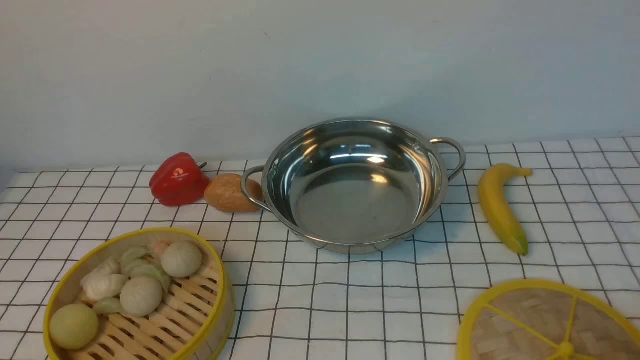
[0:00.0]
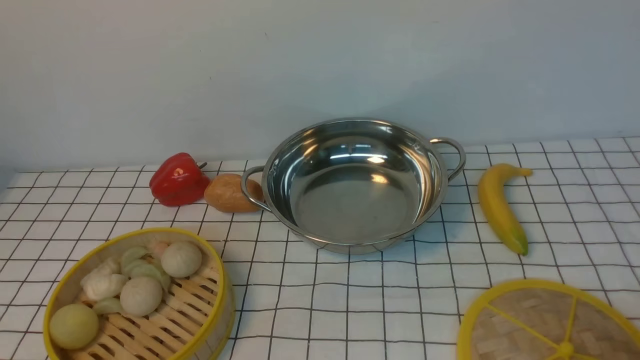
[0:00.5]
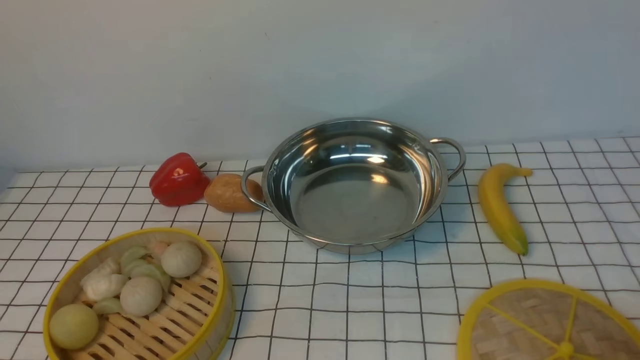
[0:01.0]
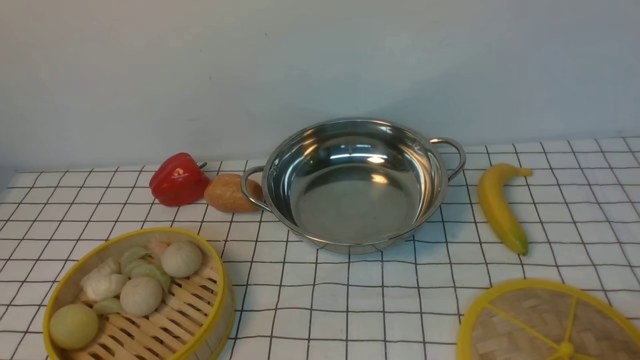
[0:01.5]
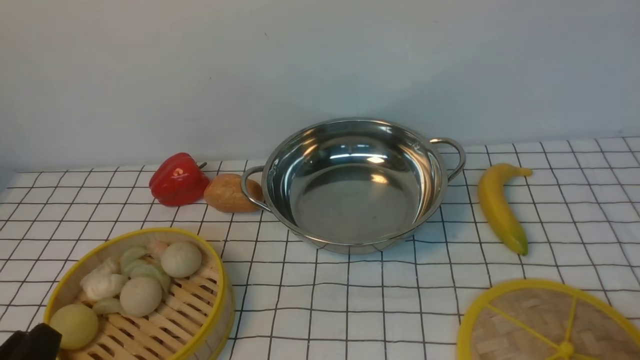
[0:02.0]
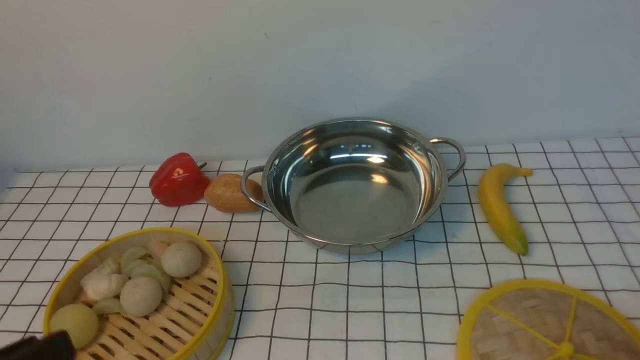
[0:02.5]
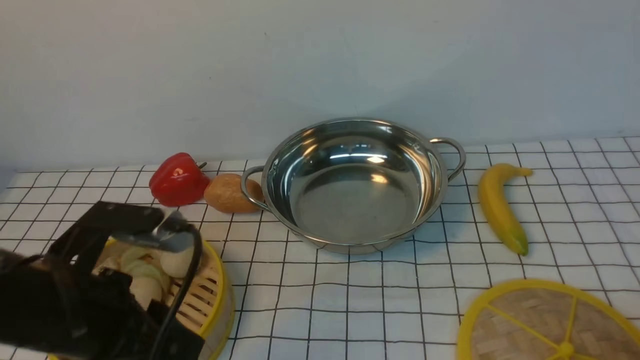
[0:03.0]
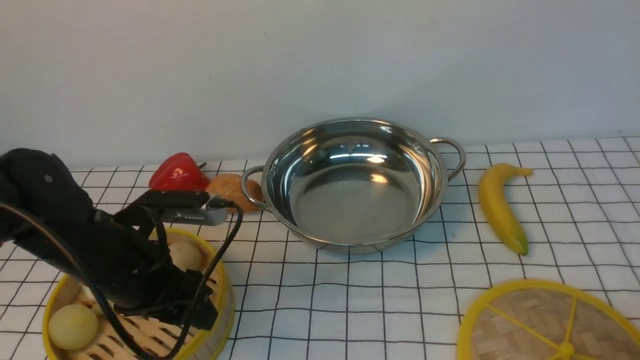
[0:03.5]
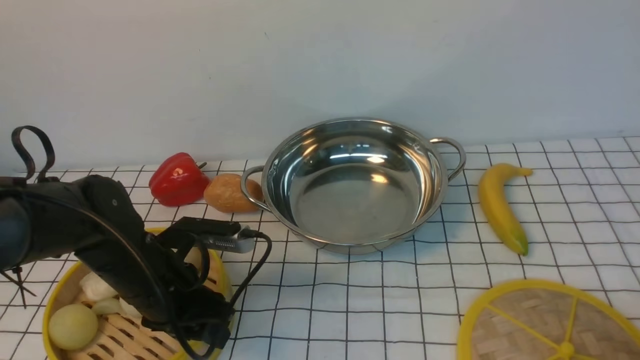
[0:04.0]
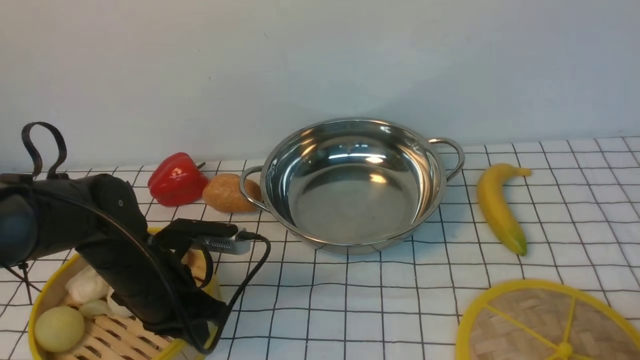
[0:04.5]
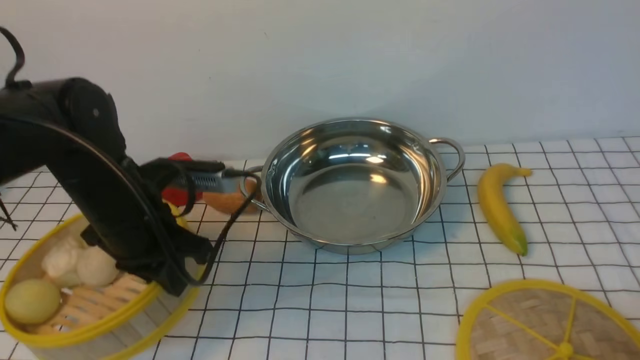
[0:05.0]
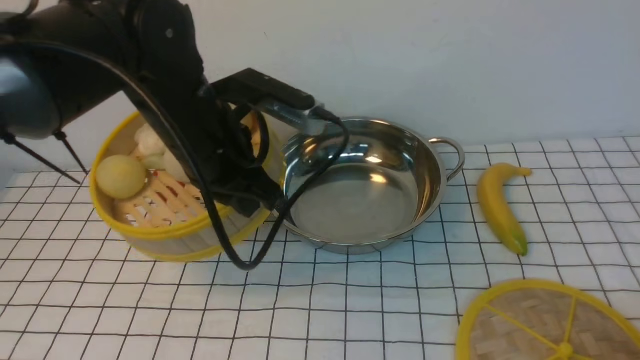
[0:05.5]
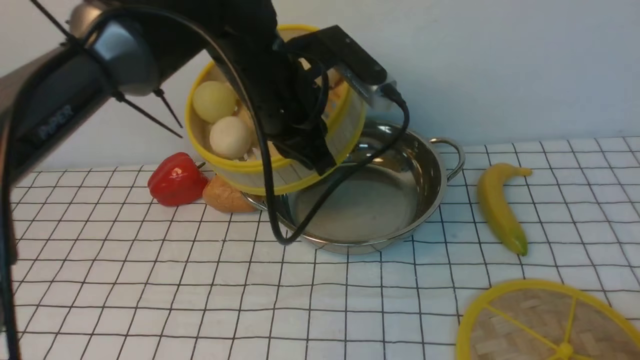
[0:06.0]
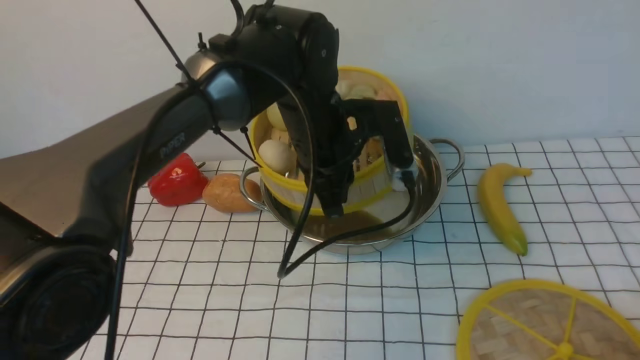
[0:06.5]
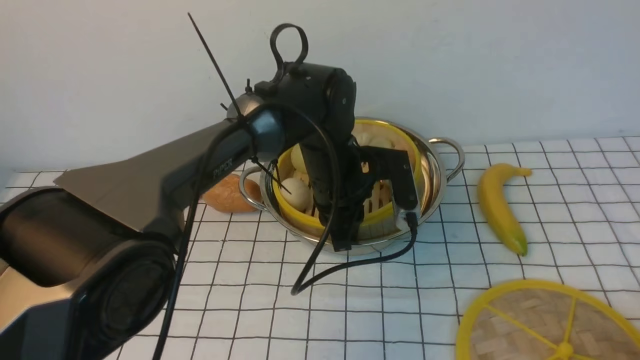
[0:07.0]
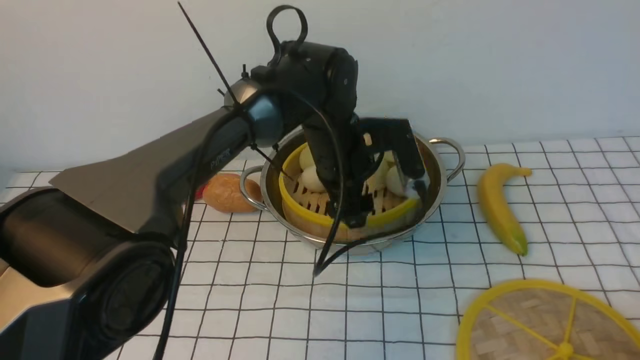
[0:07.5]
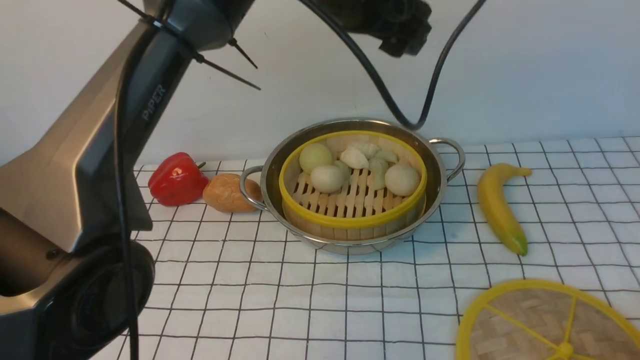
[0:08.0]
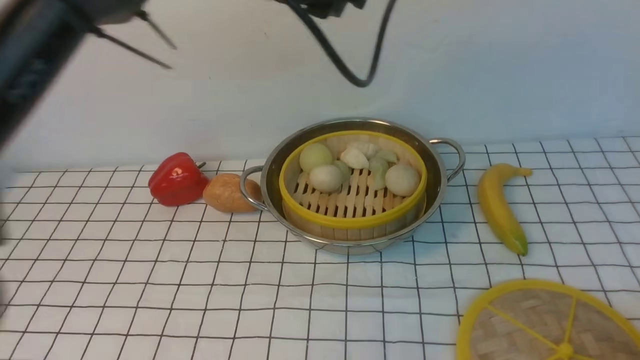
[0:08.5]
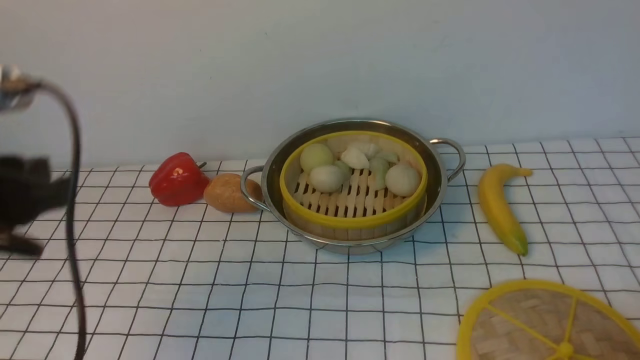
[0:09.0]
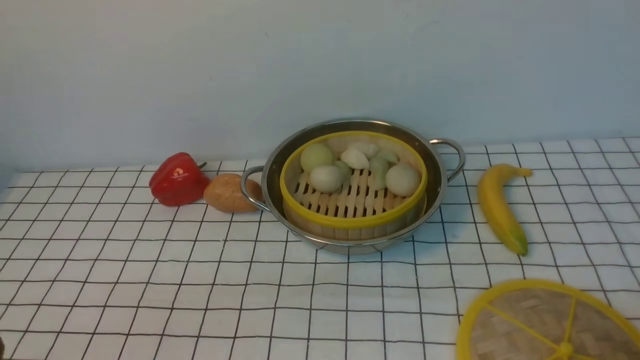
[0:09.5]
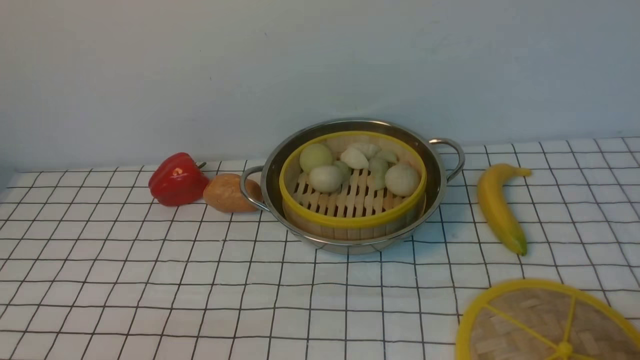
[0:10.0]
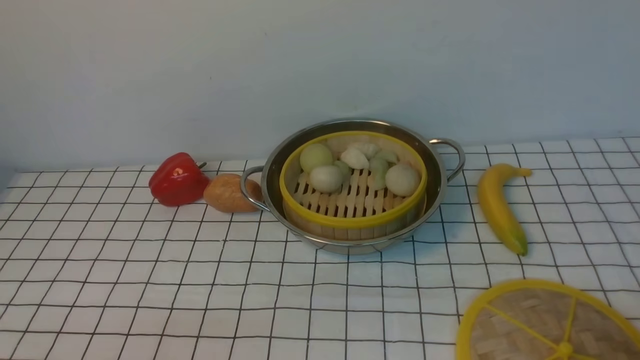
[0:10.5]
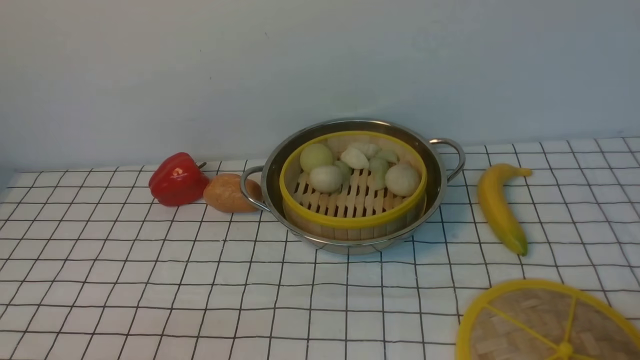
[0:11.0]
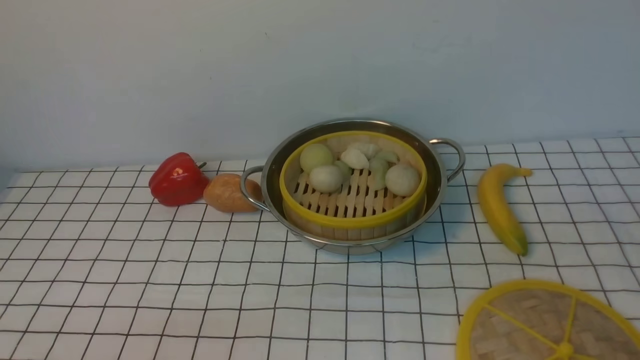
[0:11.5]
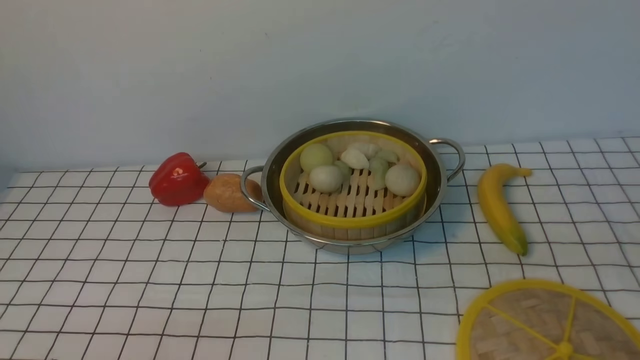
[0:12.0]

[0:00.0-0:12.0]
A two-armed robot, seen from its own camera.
Task of the whole recording: place the steamer in the pot on the white tablecloth, and put the lid on the steamer.
Step, 0:00.0 to 0:04.5: use the left arm to lift the steamer closest to it.
Step, 0:05.0 to 0:07.5: use the left arm to put the steamer into the iron steamer pot in the middle.
0:02.0 to 0:04.0: The left gripper shifts about 20 cm forward.
0:04.0 to 0:06.0: The left gripper is displaced upward, to the right and forward by roughly 25 cm, and closes its fingers.
0:06.0 to 0:08.0: The left gripper goes roughly 10 cm upward and to the right, and opens up.
0:08.0 to 0:10.0: The left gripper is displaced backward, to the left and downward by roughly 50 cm, and closes up.

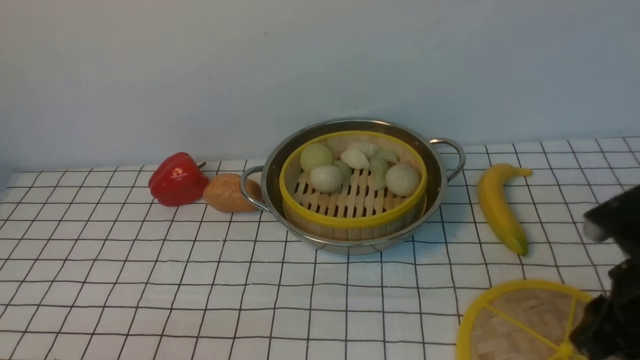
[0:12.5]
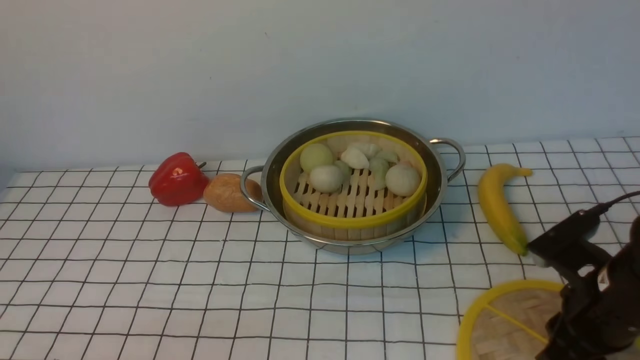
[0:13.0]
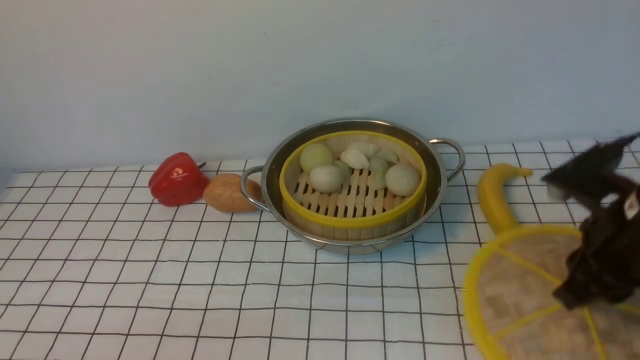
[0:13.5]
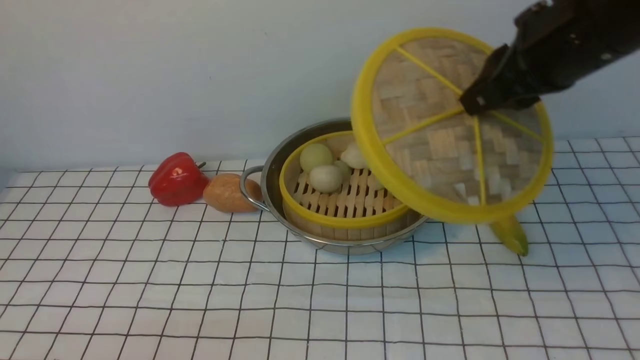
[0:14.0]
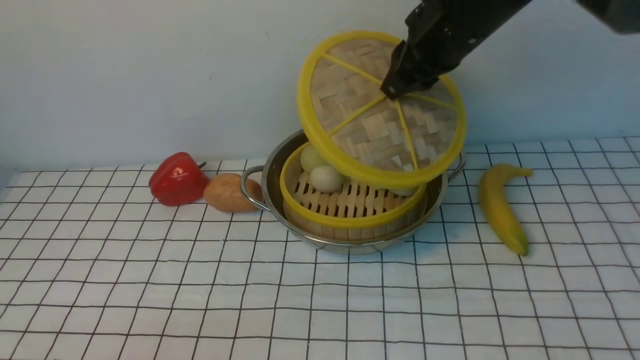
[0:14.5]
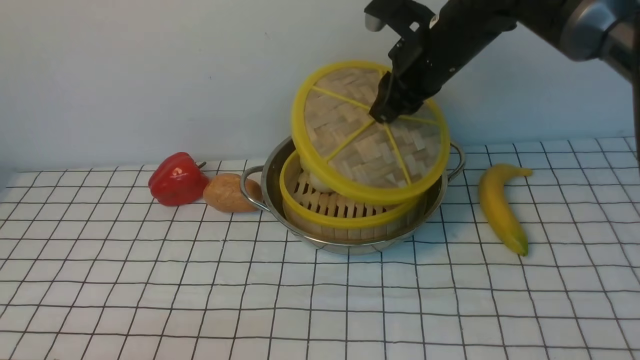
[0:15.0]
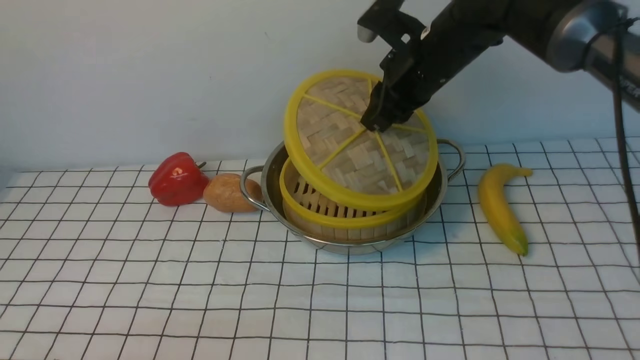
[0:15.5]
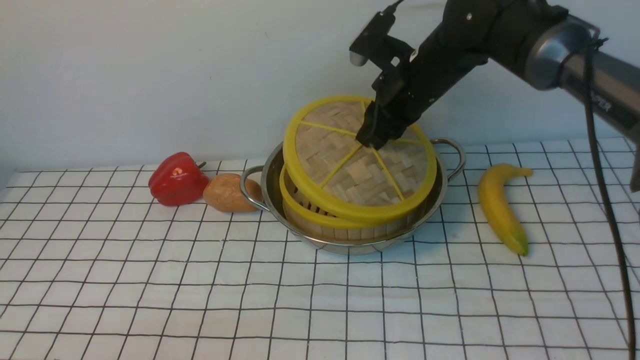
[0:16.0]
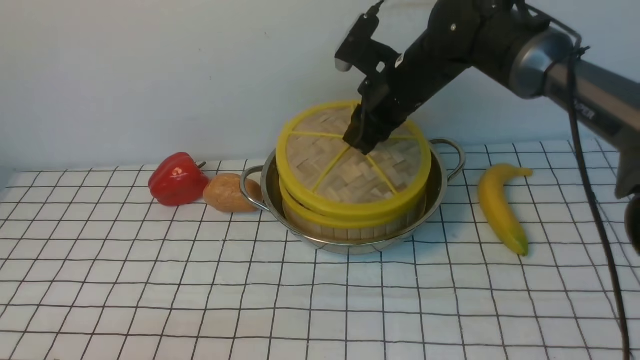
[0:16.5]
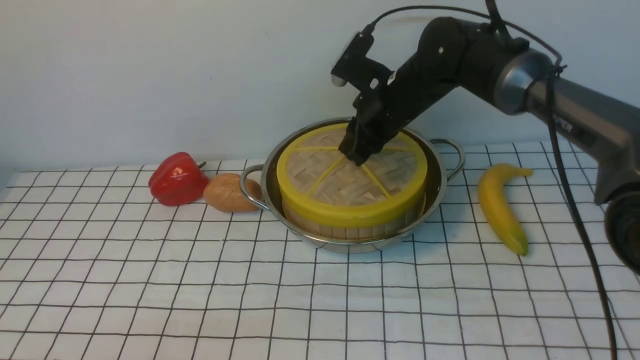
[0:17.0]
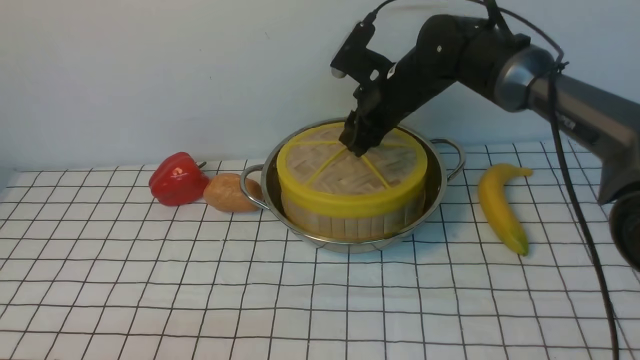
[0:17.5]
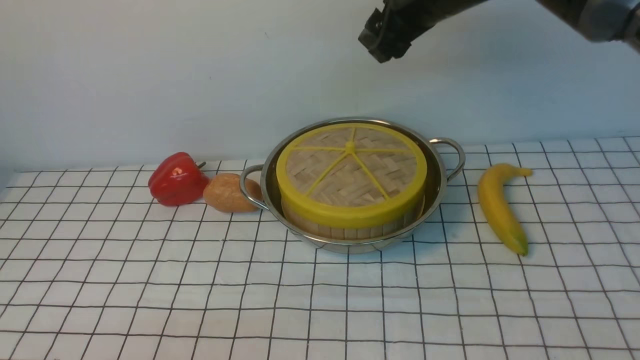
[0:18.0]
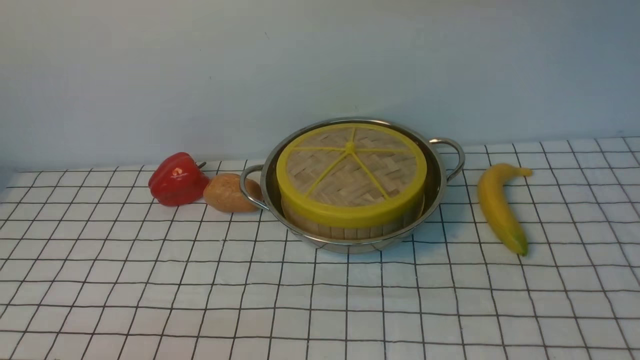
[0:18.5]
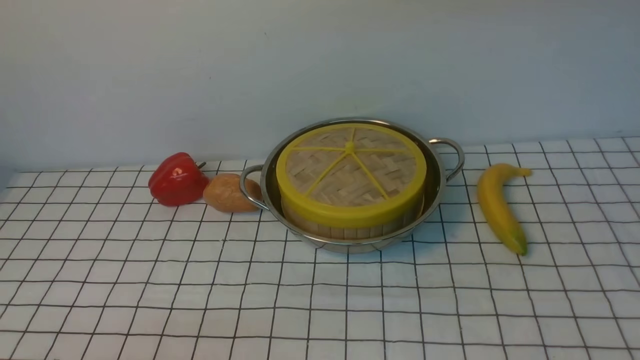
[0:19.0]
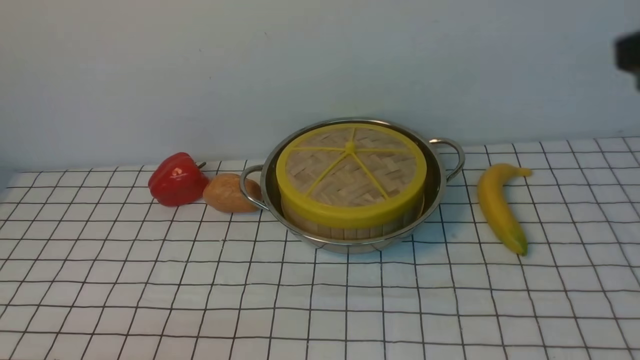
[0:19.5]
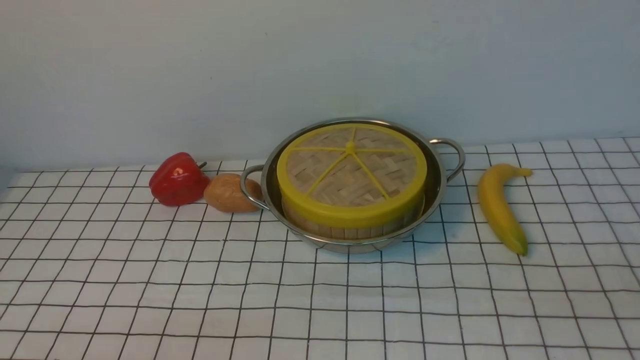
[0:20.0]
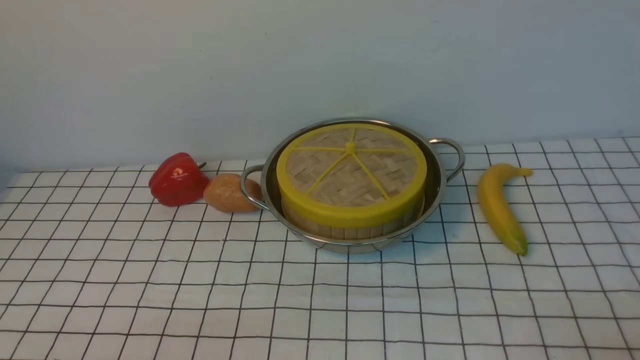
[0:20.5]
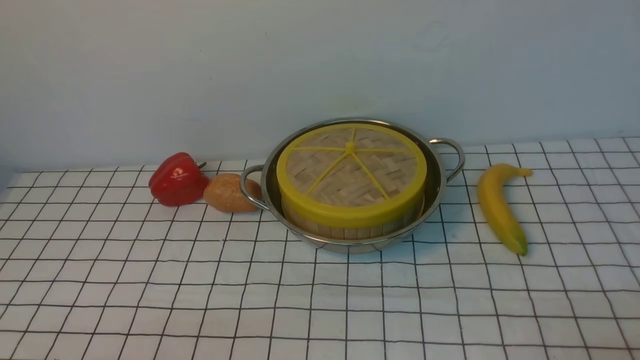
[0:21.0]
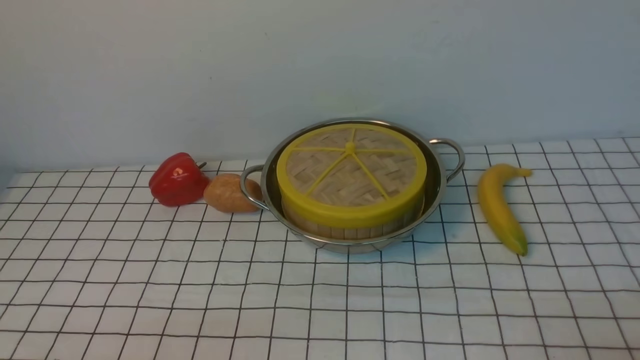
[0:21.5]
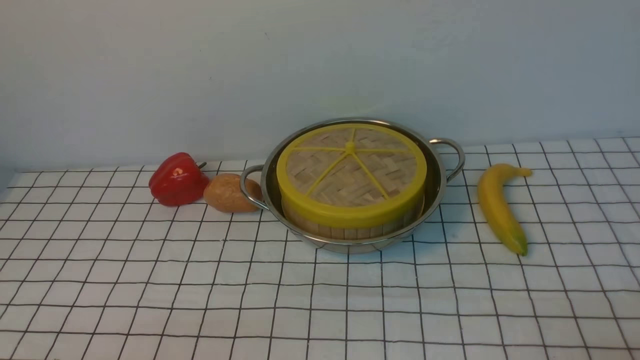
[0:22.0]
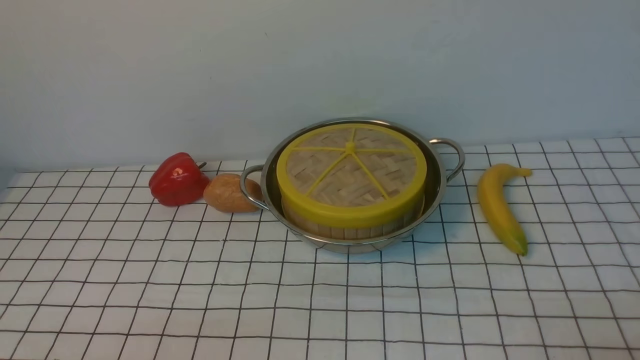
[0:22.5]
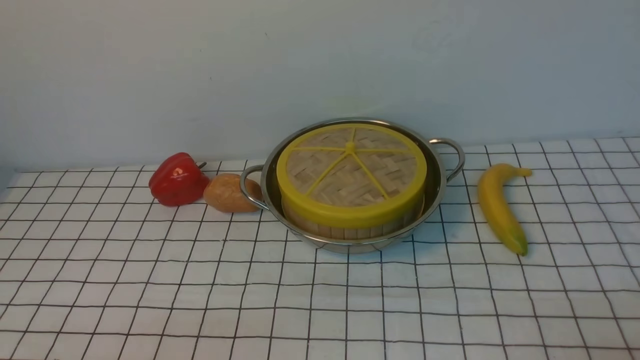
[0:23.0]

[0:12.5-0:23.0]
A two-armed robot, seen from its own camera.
Task of the whole recording: place the steamer in the pot on the white tablecloth, and put the lid on the steamer.
Step, 0:13.5 to 0:17.5: use the right arm to place the steamer lid on the steamer.
0:12.5 to 0:14.5: The right gripper shifts some 30 cm forward, to the left and upward.
0:14.5 to 0:16.5: The right gripper travels downward by about 10 cm.
0:16.5 to 0:19.0: The right gripper shifts about 30 cm upward and backward, and opens and closes again.
0:21.0 to 0:23.0: Both grippers stay put.
